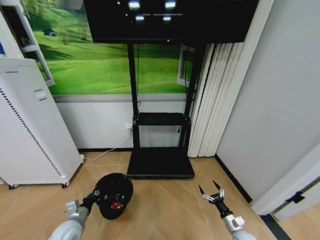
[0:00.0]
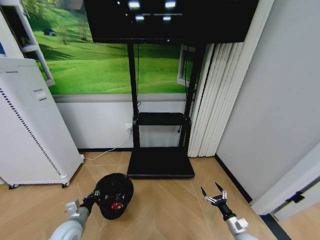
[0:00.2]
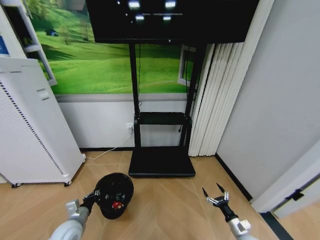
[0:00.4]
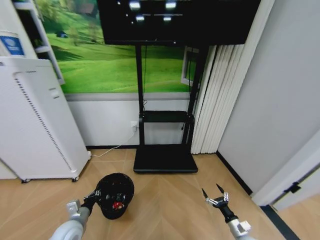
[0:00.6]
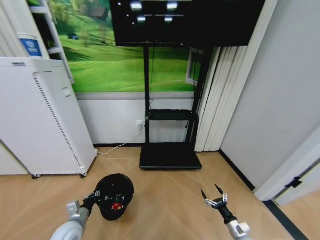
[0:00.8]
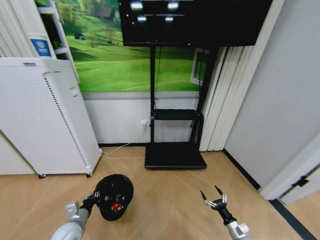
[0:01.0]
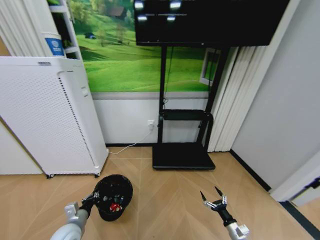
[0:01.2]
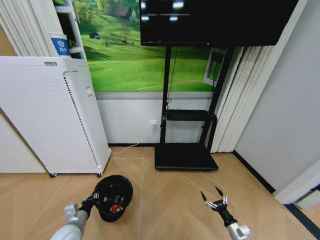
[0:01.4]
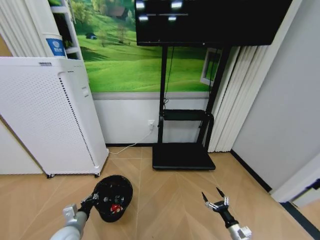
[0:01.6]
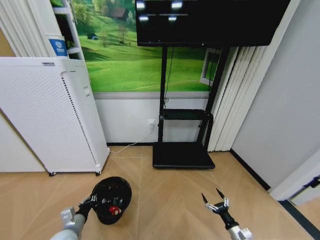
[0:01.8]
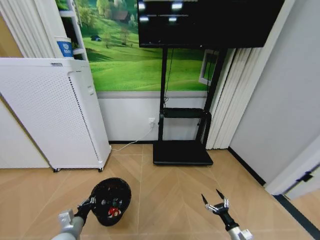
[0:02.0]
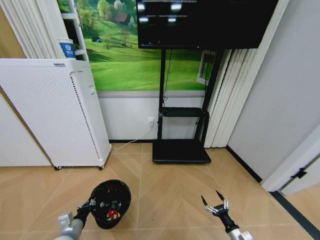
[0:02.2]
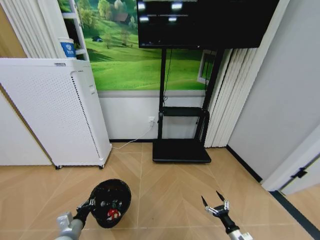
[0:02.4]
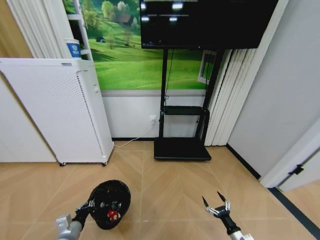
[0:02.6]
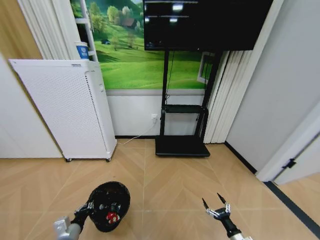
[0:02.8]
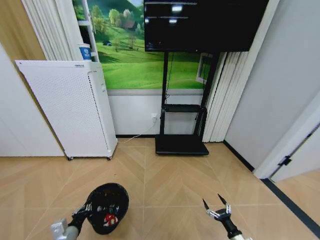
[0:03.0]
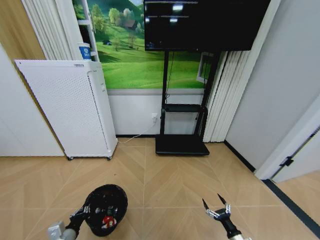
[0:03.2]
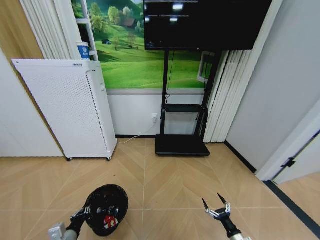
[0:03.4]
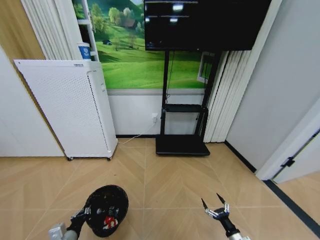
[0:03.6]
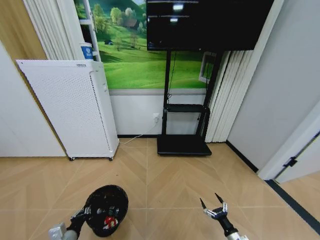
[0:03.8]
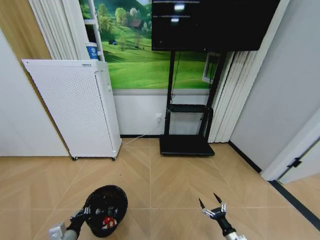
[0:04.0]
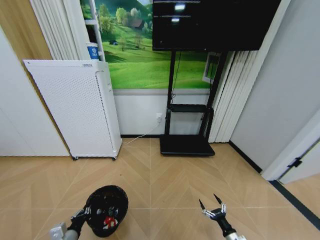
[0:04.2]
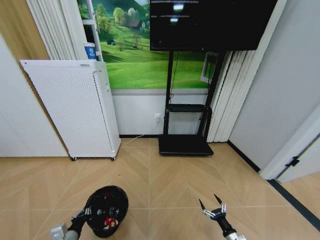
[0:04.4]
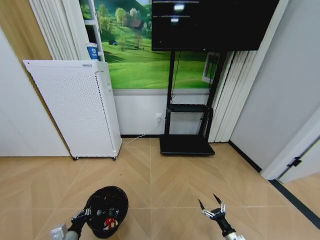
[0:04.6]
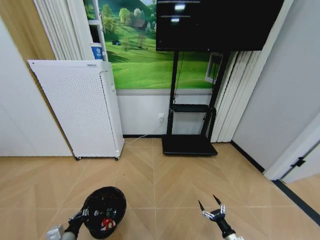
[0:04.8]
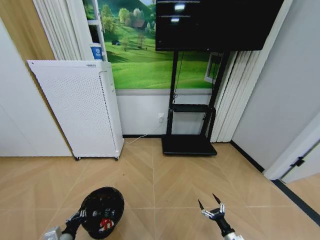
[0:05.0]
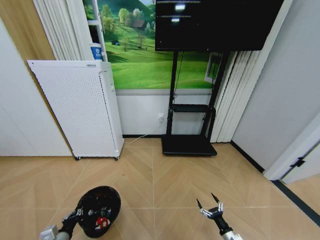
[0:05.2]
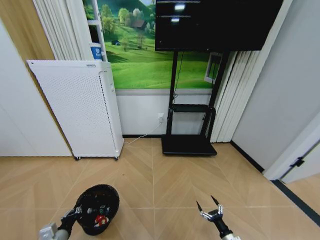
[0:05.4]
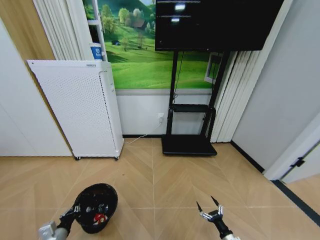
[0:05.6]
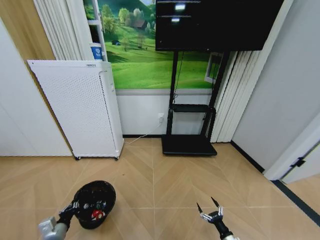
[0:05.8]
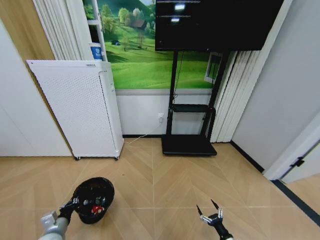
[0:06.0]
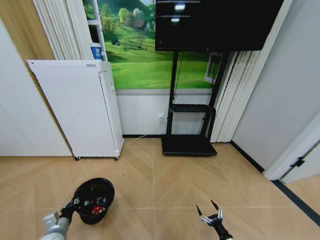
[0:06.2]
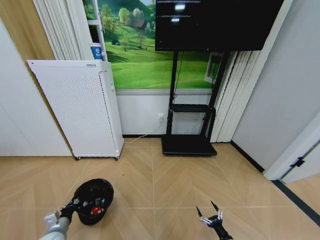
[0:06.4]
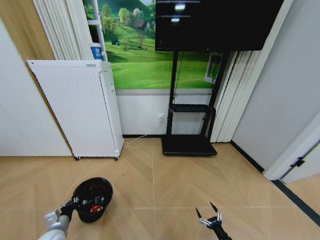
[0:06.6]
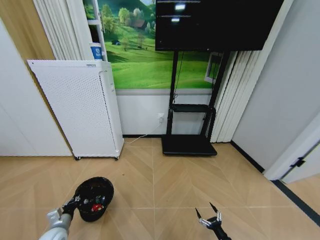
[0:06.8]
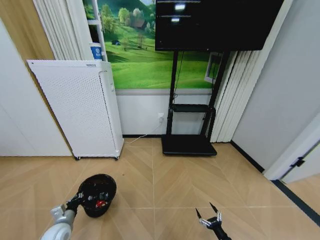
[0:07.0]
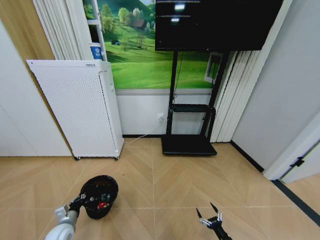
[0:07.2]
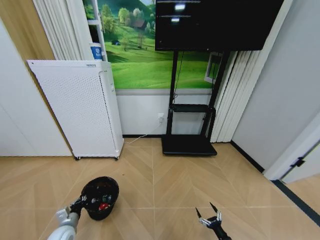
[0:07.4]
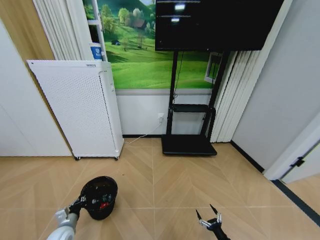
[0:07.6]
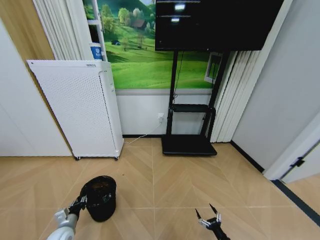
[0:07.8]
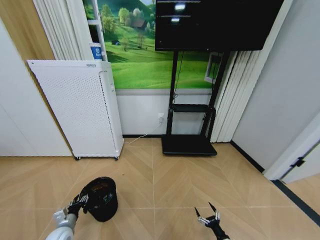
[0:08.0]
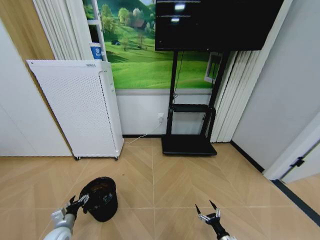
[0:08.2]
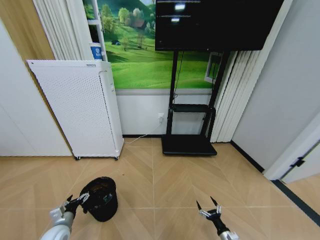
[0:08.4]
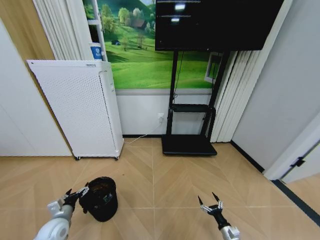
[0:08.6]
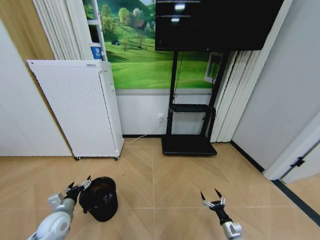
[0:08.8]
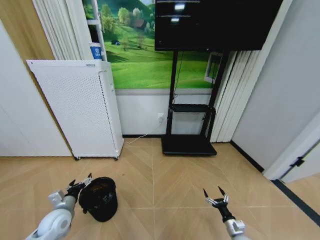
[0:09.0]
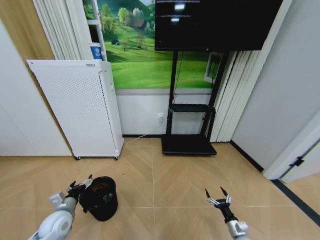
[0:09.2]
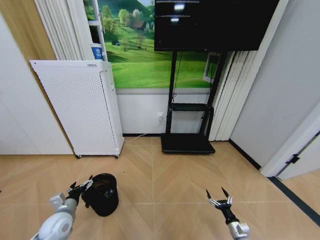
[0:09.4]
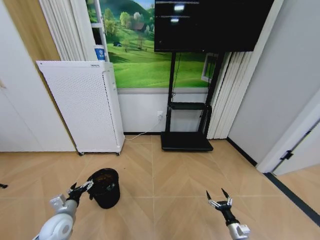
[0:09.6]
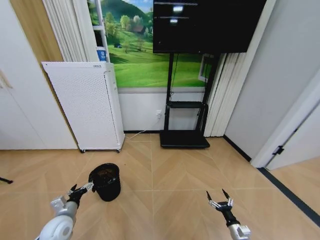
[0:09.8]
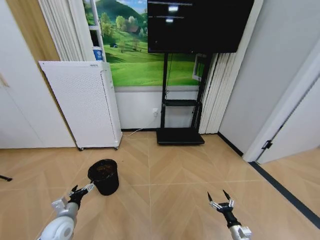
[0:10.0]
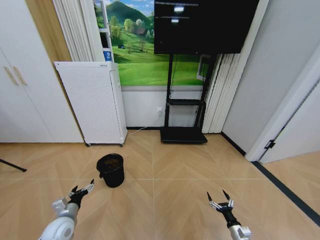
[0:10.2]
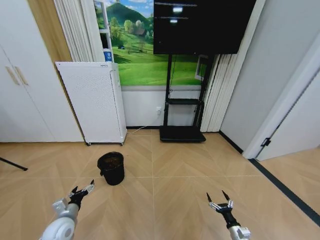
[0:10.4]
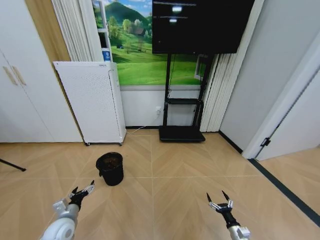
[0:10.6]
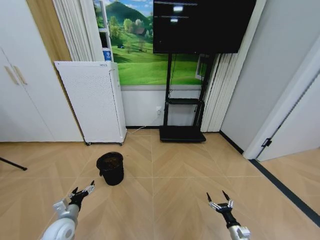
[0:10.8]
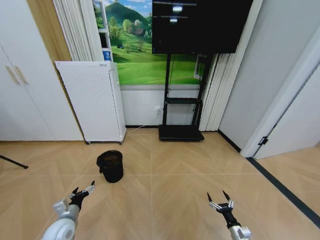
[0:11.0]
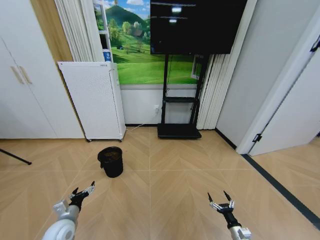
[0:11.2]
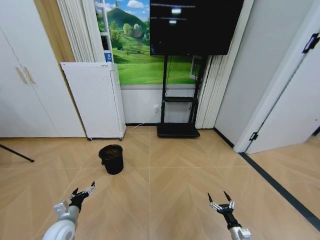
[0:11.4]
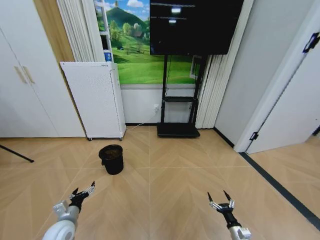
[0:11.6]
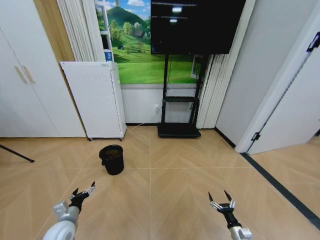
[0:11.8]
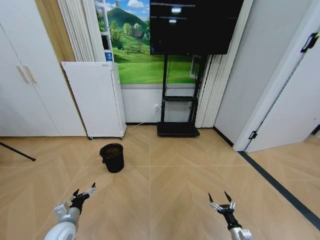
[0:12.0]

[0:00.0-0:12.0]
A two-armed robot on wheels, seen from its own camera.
Task of the whole recording: Pick up the trash bin and place the garbage on the floor into it.
0:01.6 to 0:03.0: The left gripper shifts about 5 cm backward.
0:03.0 to 0:04.4: The grippers move only a little.
0:04.4 to 0:06.0: The left gripper shifts roughly 5 cm to the left.
0:06.0 to 0:07.6: The left gripper heads downward, covering roughly 5 cm.
0:07.6 to 0:09.0: The left gripper moves upward, some 10 cm, and opens its fingers, while the right gripper travels forward by about 10 cm.
0:10.4 to 0:12.0: The grippers move only a little.

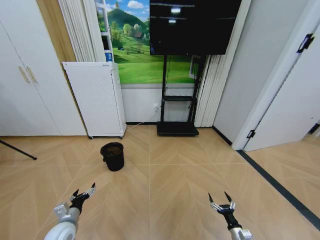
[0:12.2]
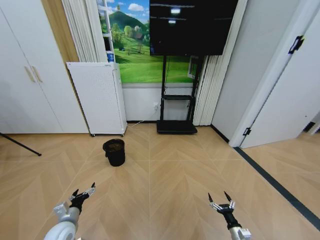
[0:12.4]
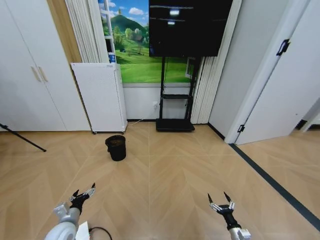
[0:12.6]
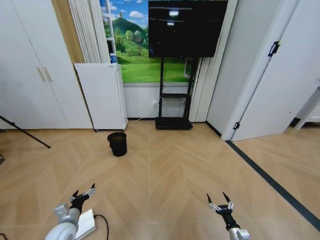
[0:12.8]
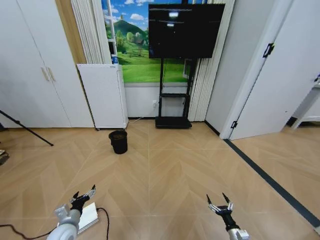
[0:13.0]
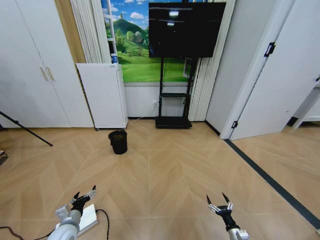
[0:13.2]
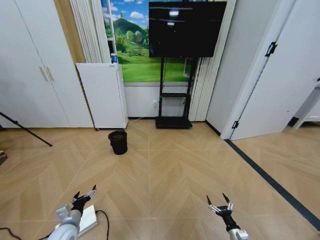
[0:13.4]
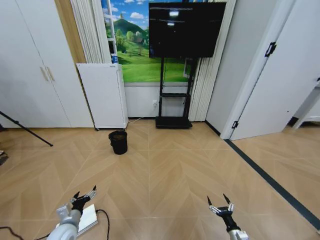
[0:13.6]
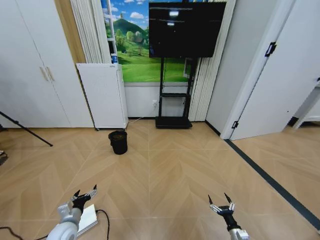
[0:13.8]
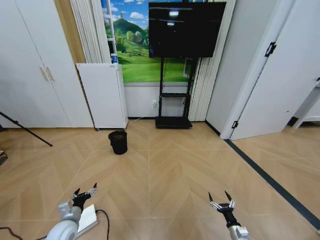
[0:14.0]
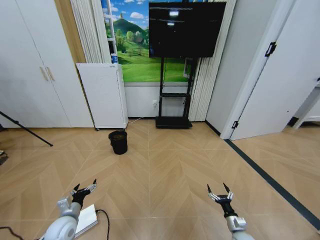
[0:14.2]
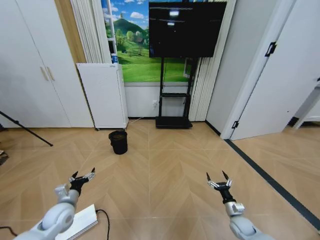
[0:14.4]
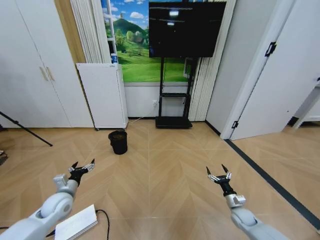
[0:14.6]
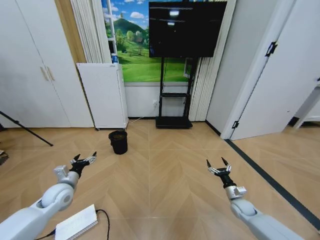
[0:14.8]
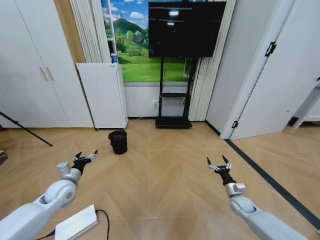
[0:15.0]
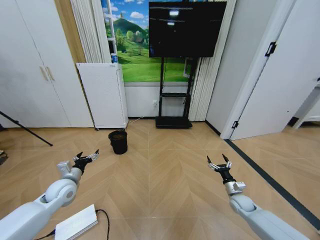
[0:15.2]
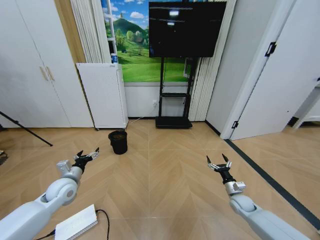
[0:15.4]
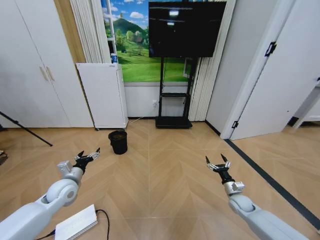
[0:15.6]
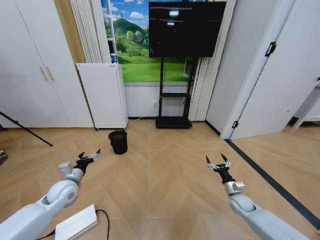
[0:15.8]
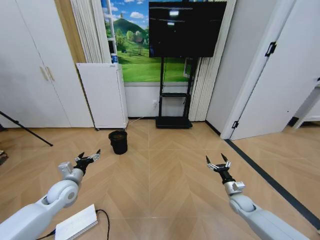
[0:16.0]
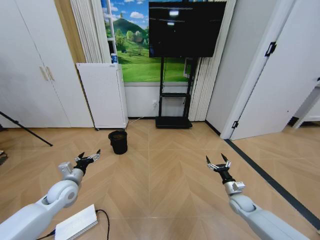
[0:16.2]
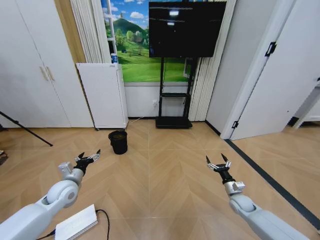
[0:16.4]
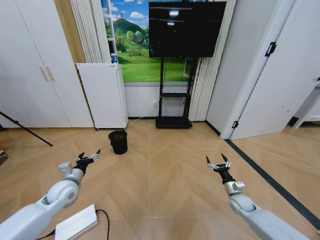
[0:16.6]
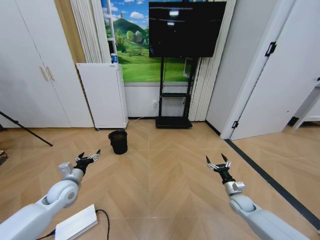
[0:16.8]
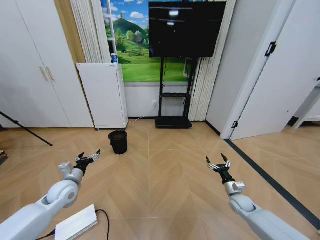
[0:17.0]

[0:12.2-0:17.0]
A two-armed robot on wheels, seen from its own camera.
Task of the whole recording: Pick up the trash bin and place the garbage on the floor into it.
0:13.8 to 0:15.4: The right gripper goes roughly 20 cm forward and upward, while the left gripper is displaced upward and forward by approximately 20 cm.
0:15.4 to 0:17.0: Both grippers stay about where they are.
